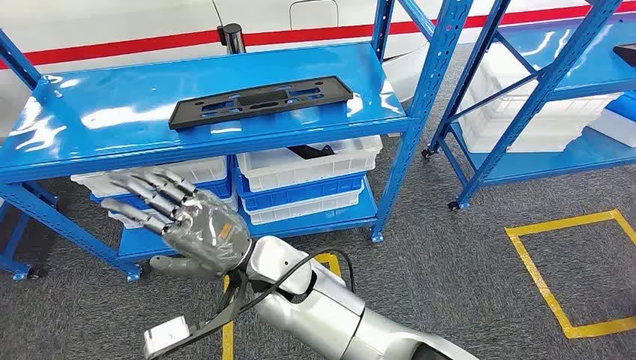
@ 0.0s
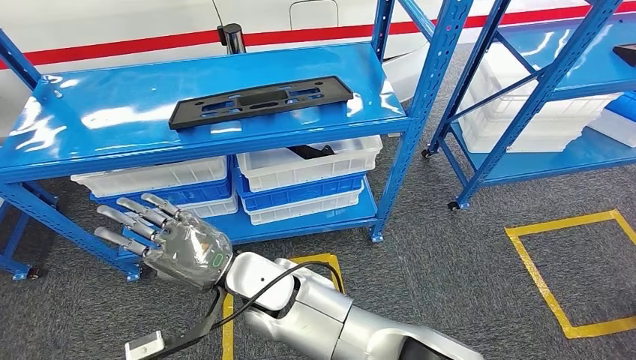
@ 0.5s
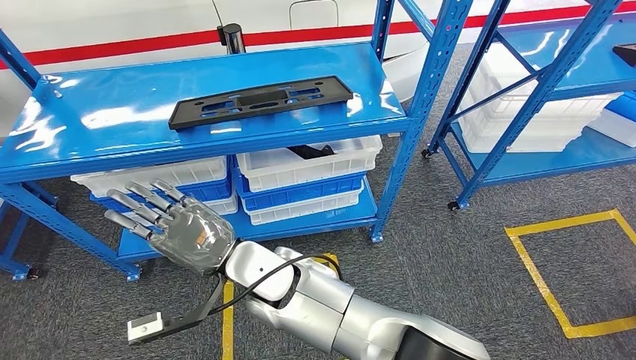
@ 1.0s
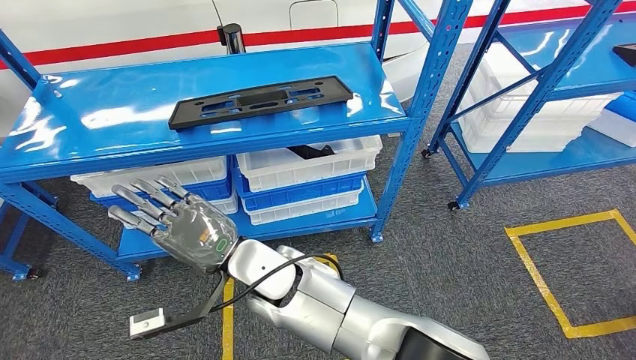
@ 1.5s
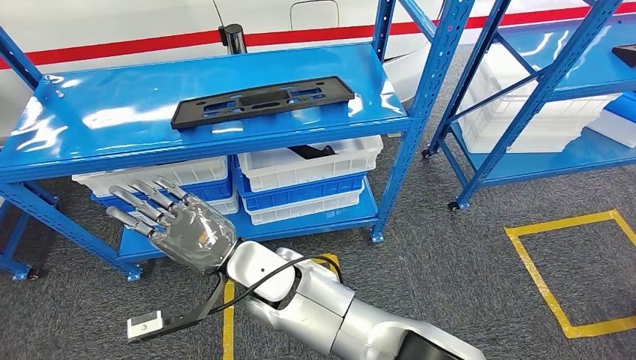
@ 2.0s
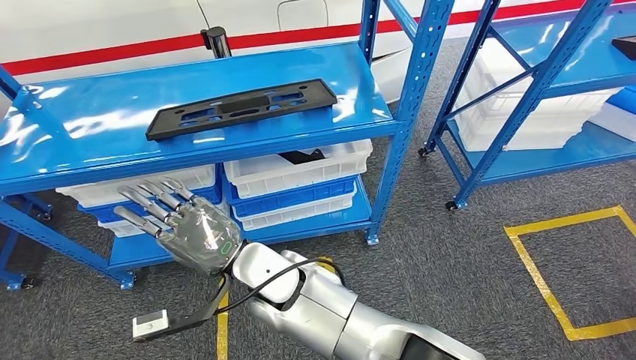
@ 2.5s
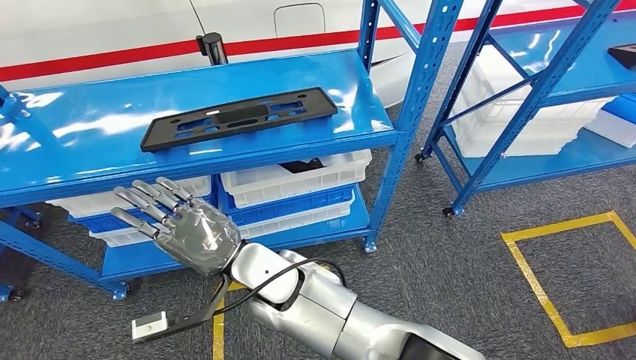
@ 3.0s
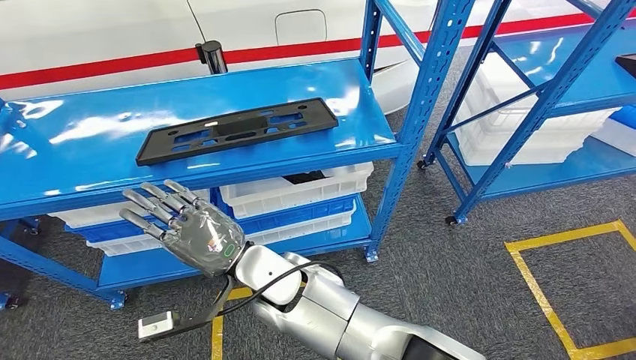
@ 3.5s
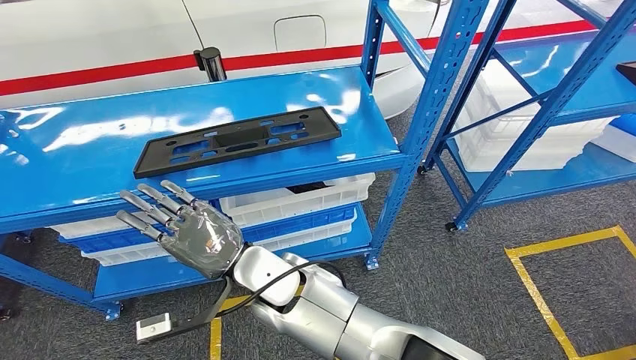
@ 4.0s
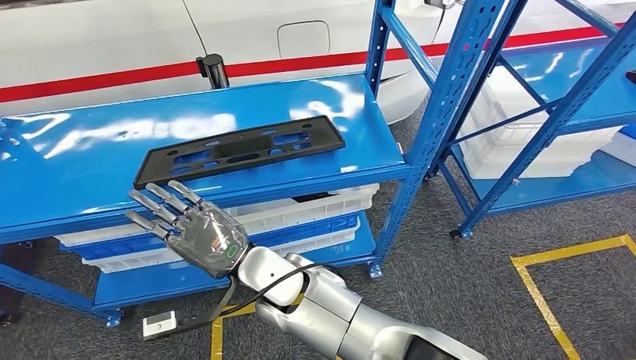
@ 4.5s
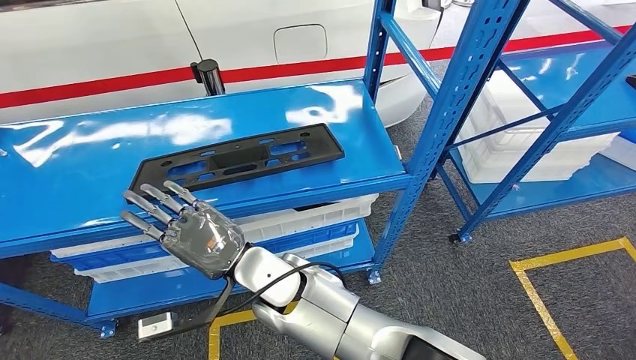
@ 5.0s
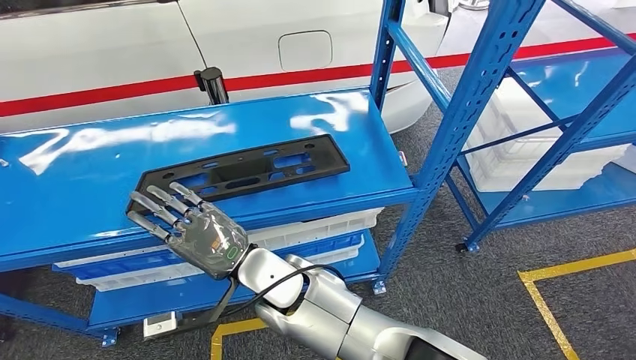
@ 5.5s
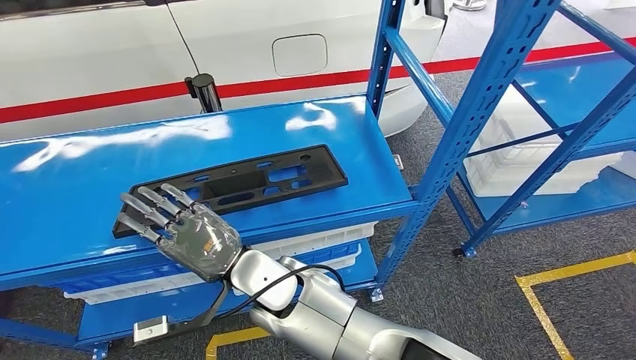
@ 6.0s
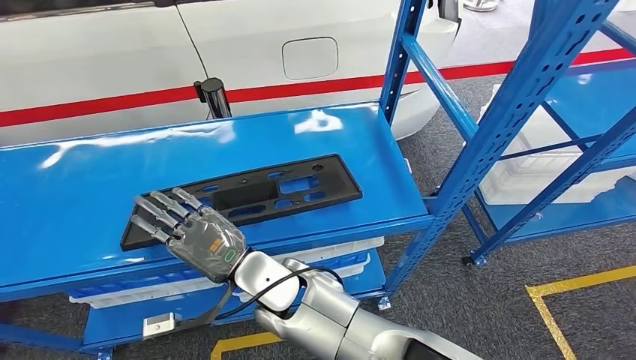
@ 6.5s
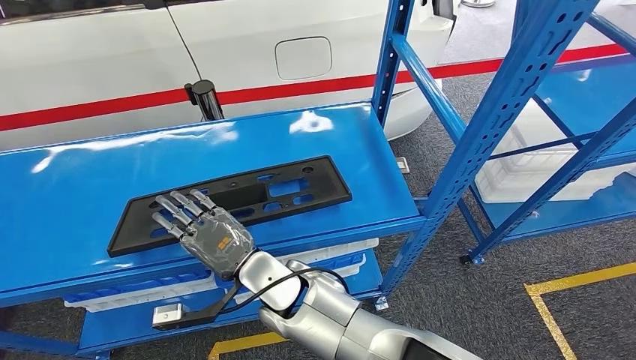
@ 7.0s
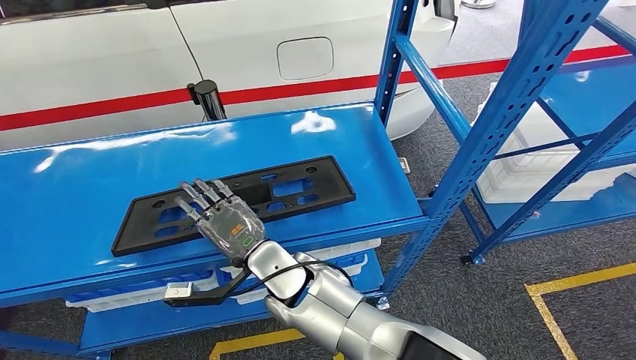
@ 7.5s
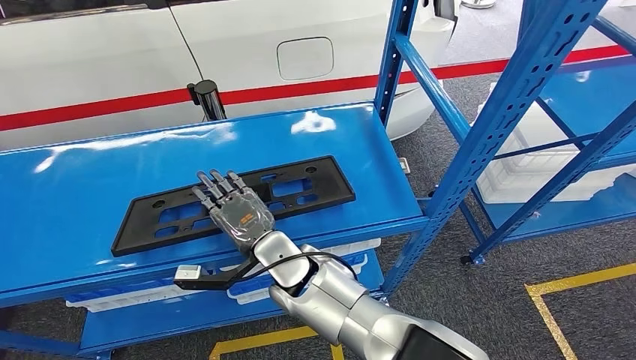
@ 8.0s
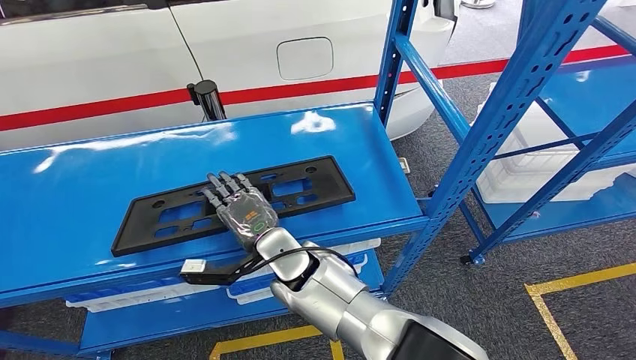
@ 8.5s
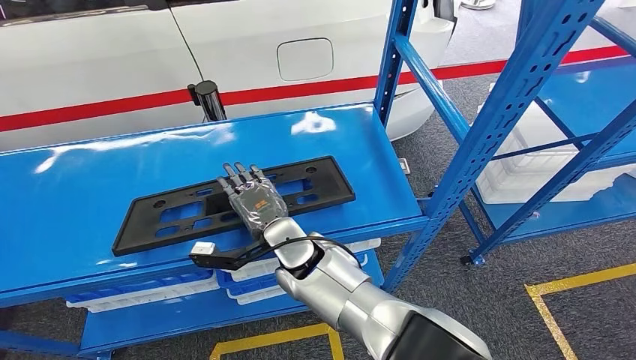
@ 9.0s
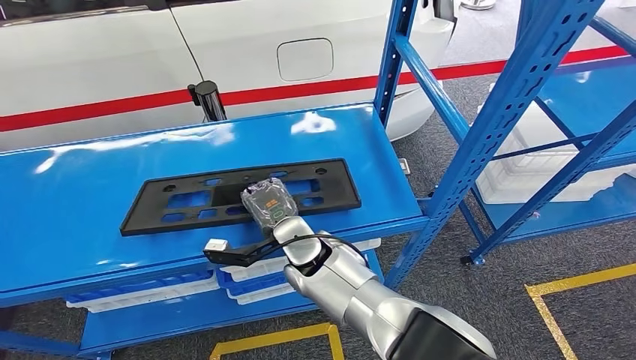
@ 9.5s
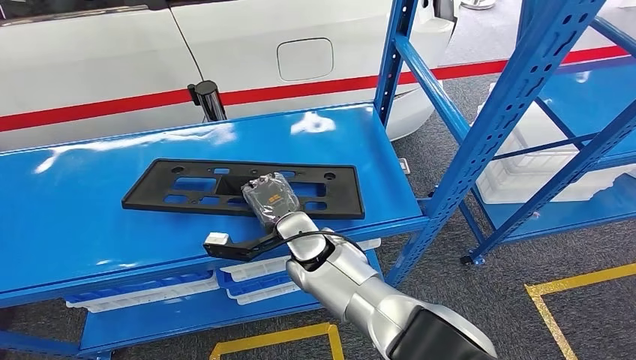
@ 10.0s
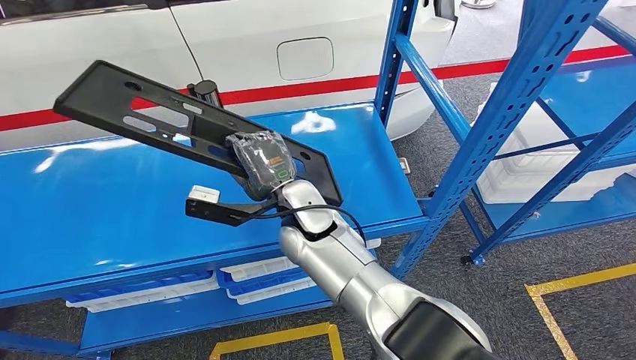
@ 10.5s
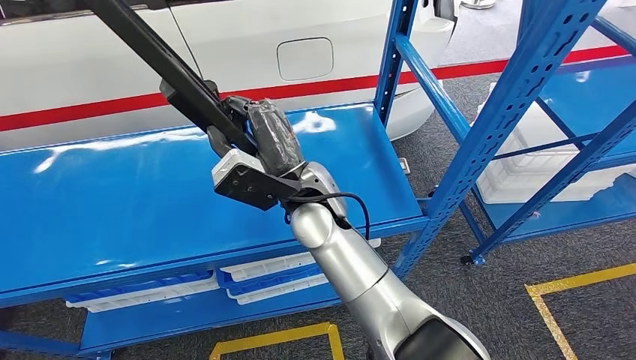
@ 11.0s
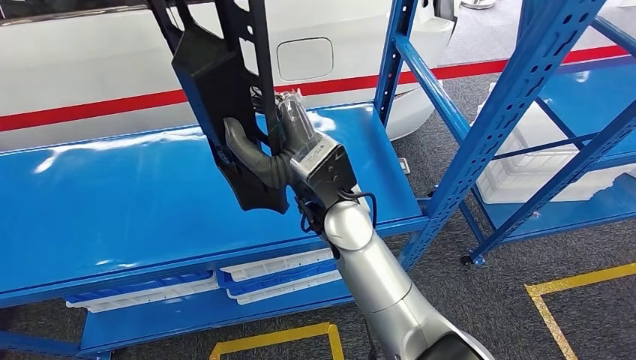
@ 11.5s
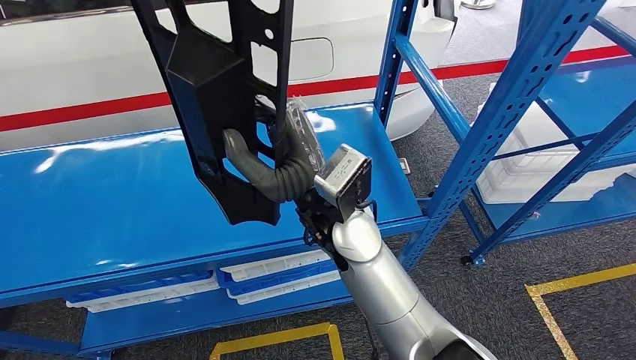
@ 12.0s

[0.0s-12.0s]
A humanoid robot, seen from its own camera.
8.0s to 10.0s: The hands stay close to where they were, moving slightly.

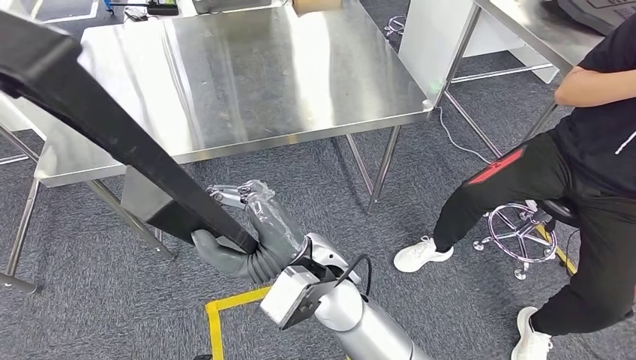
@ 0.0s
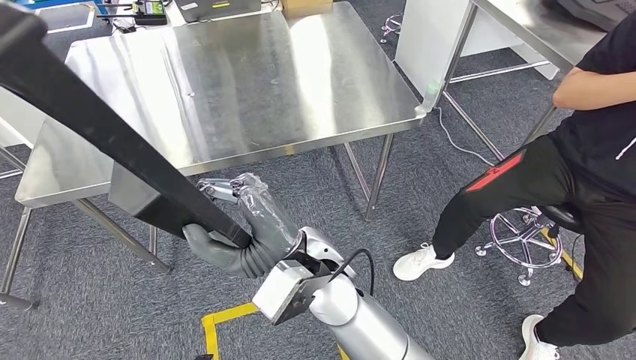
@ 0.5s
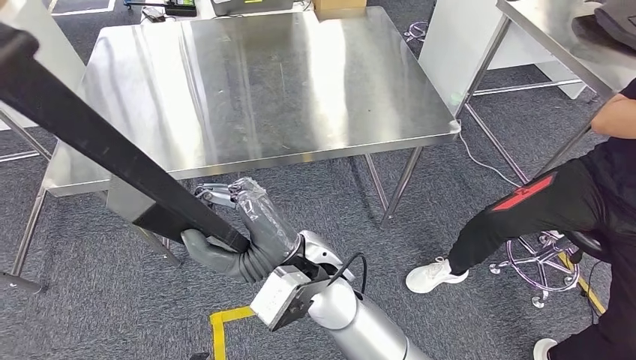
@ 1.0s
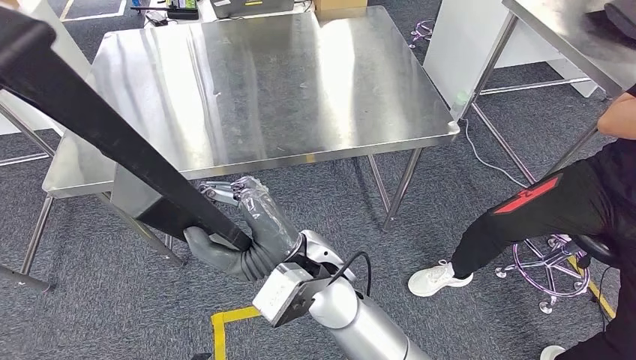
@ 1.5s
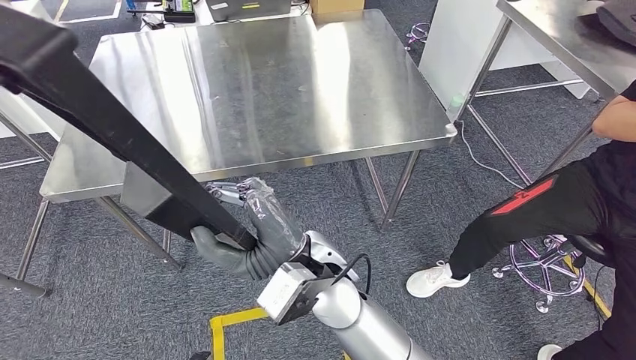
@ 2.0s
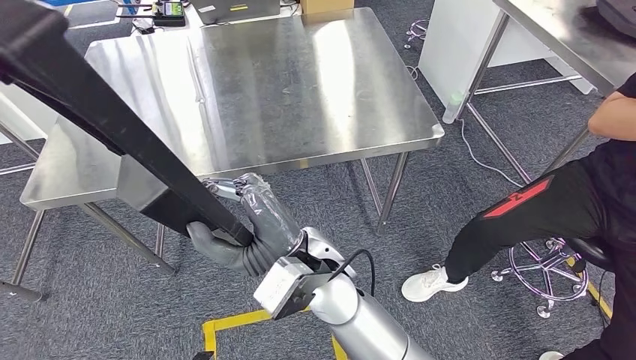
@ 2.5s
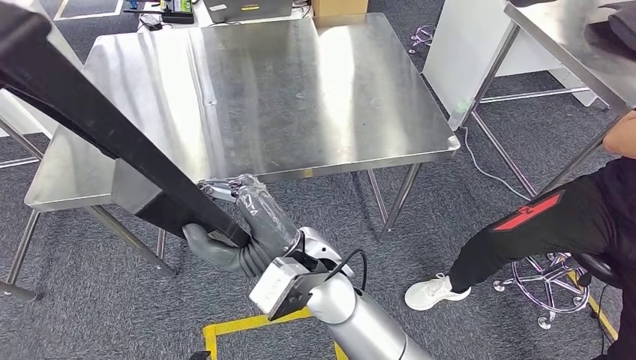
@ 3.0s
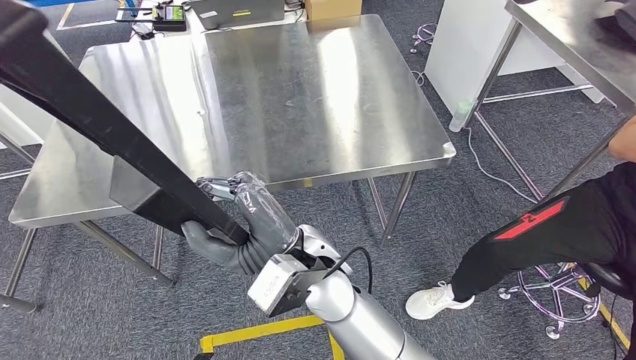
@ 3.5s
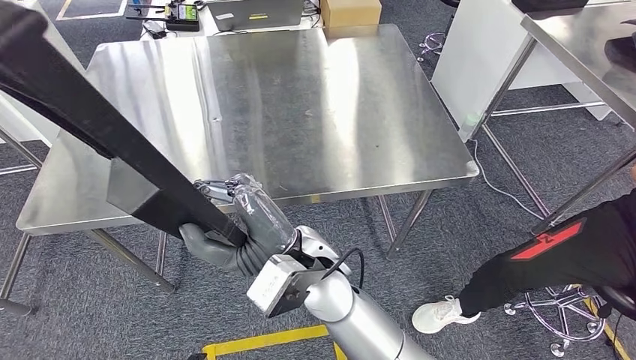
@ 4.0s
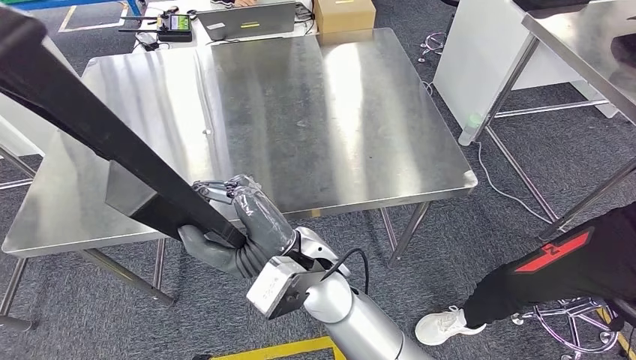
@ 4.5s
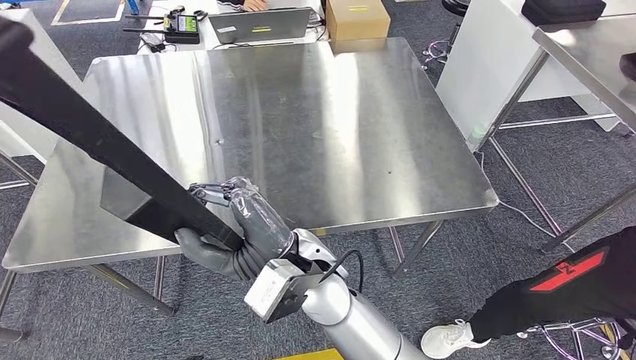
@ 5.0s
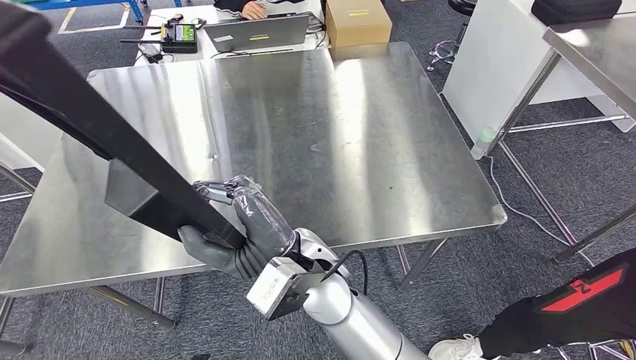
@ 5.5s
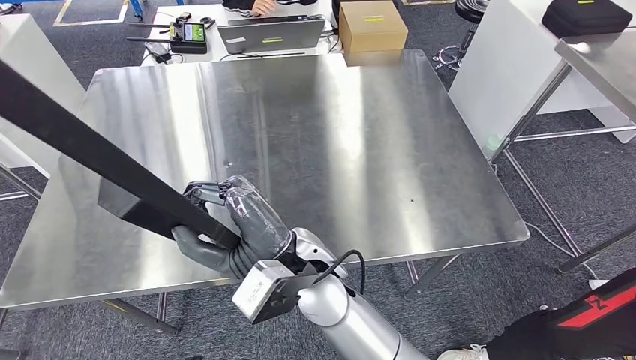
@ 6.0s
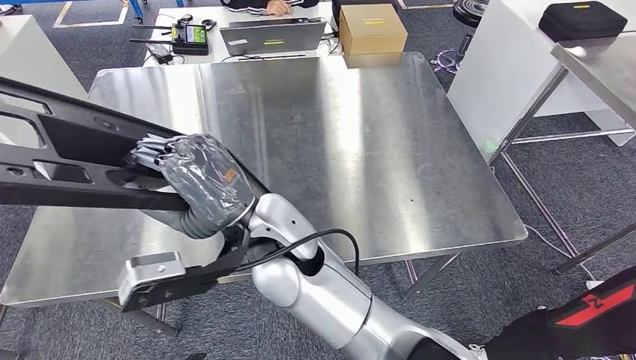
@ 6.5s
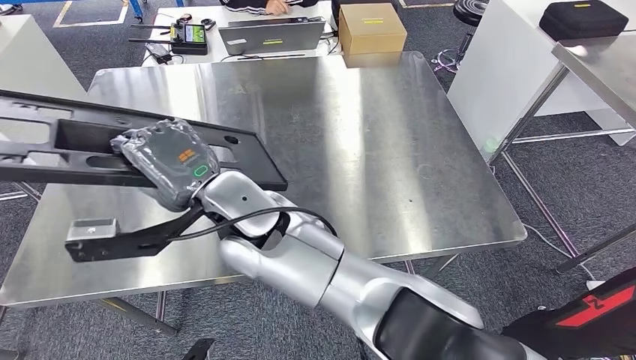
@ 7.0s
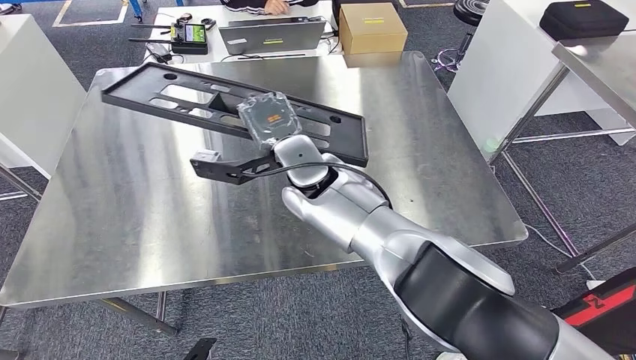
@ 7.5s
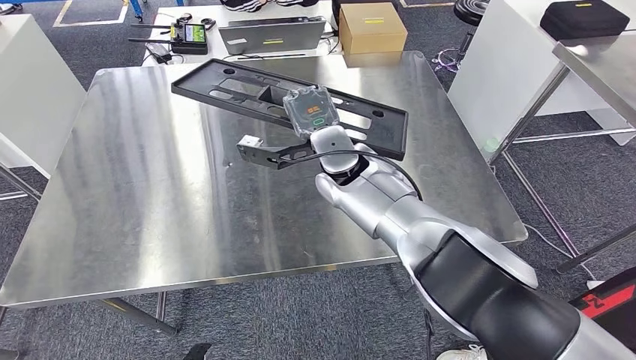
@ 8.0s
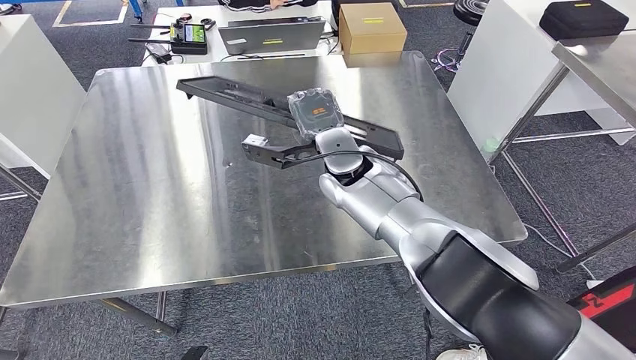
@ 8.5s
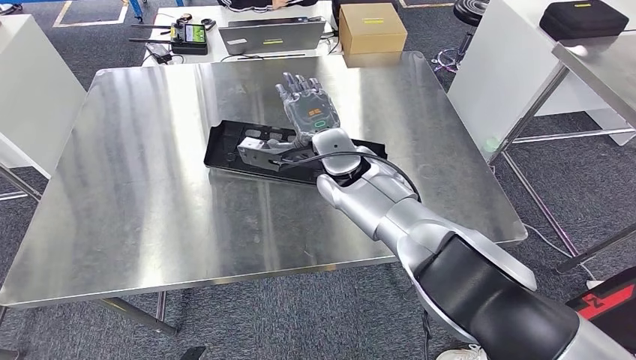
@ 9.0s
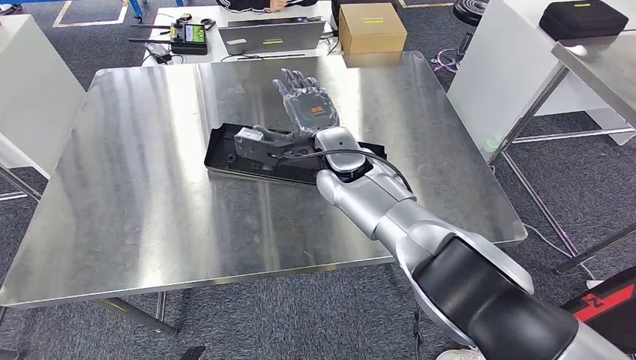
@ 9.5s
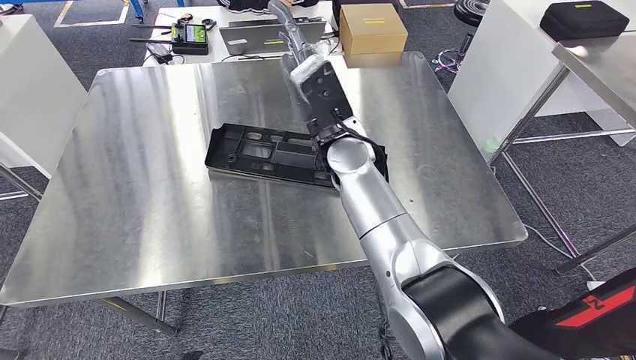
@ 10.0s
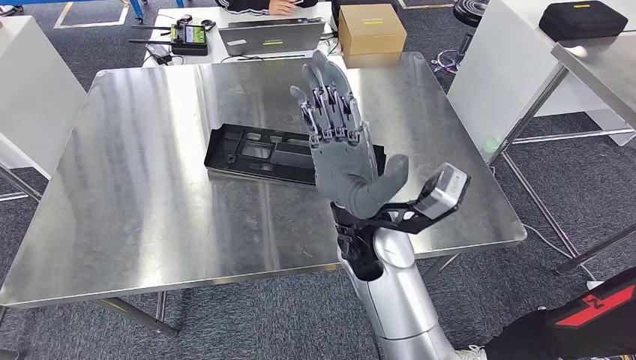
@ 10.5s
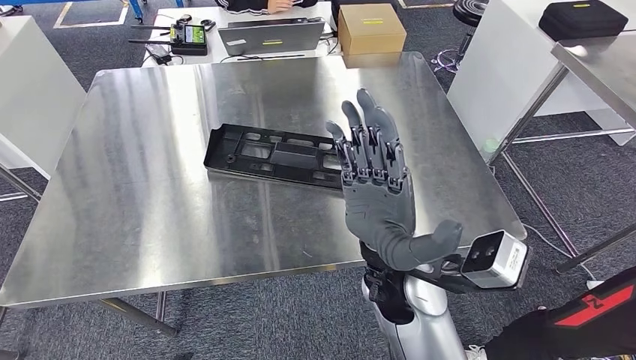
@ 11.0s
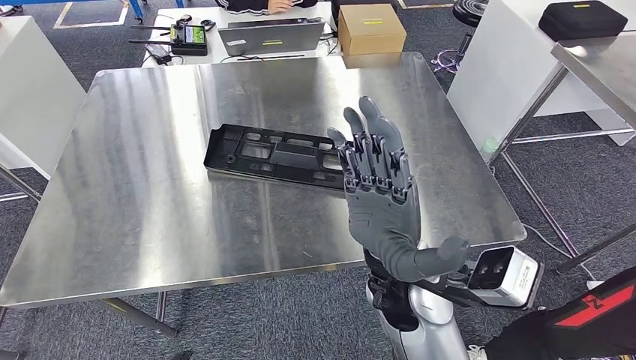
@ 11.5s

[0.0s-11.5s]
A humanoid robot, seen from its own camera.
7.5s to 9.5s: The right hand heads to the right, covering about 5 cm.
9.5s to 11.5s: The right hand goes roughly 20 cm backward.
